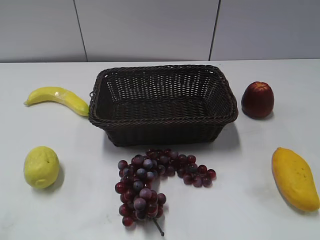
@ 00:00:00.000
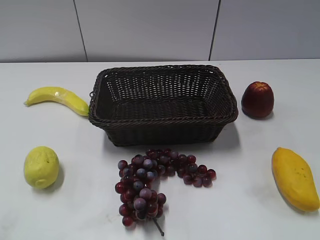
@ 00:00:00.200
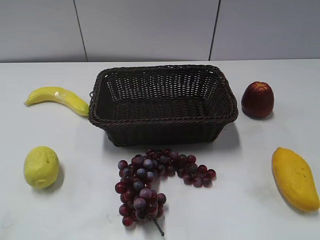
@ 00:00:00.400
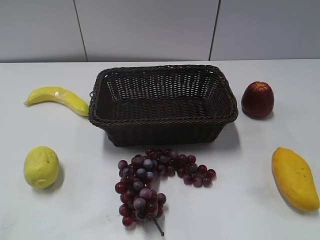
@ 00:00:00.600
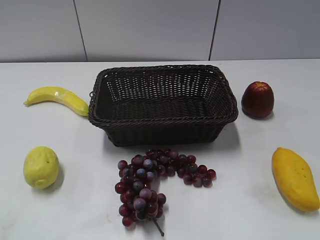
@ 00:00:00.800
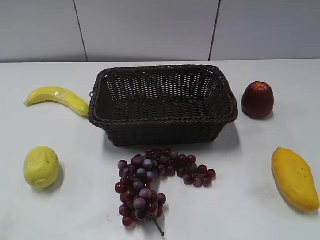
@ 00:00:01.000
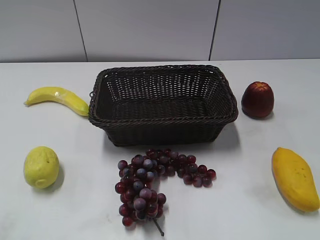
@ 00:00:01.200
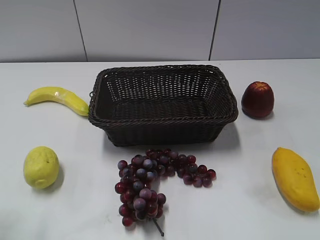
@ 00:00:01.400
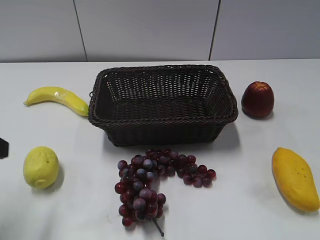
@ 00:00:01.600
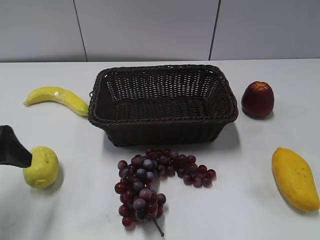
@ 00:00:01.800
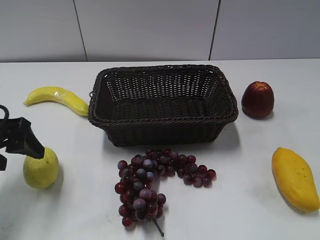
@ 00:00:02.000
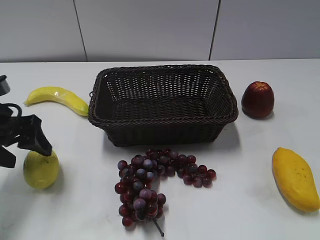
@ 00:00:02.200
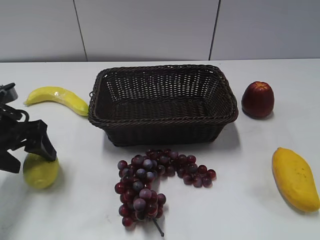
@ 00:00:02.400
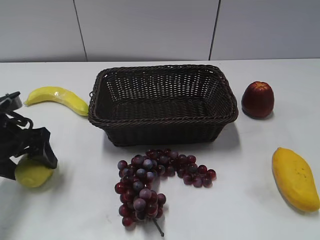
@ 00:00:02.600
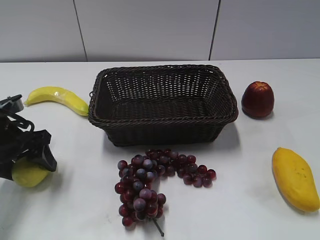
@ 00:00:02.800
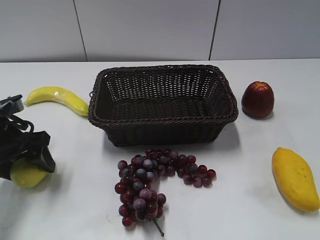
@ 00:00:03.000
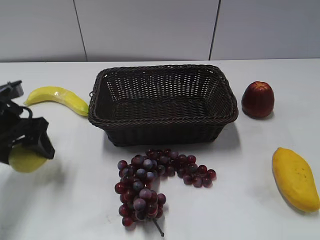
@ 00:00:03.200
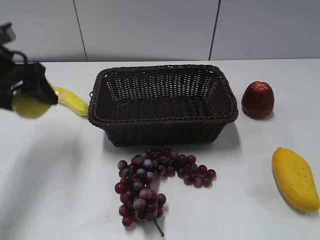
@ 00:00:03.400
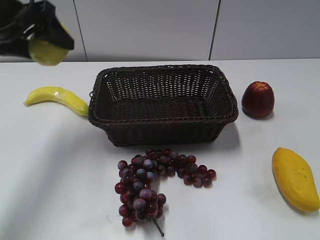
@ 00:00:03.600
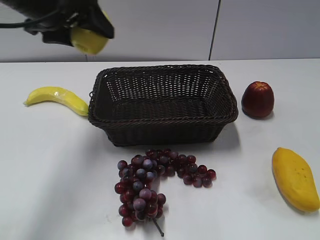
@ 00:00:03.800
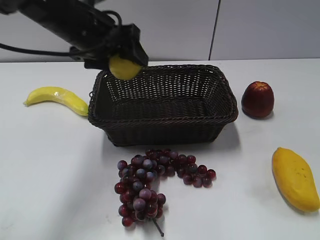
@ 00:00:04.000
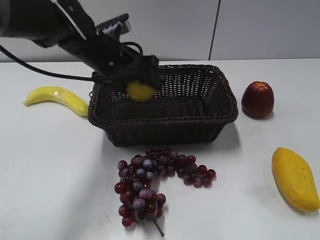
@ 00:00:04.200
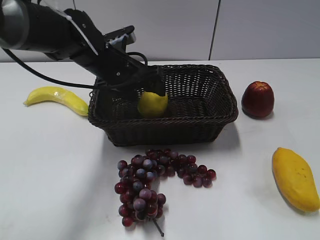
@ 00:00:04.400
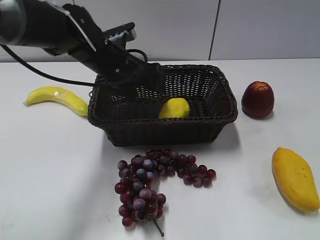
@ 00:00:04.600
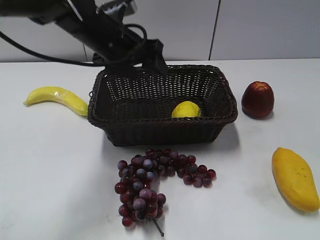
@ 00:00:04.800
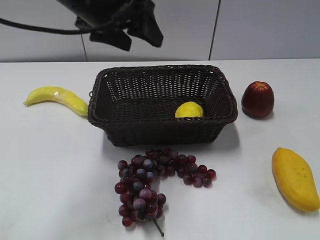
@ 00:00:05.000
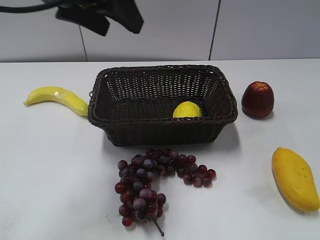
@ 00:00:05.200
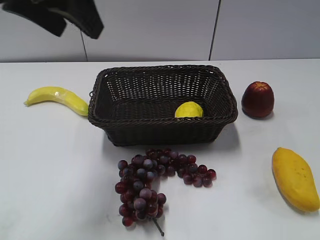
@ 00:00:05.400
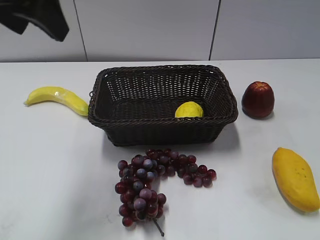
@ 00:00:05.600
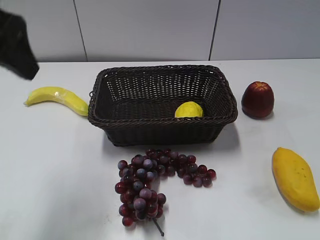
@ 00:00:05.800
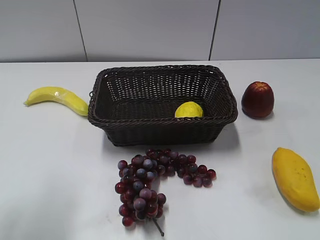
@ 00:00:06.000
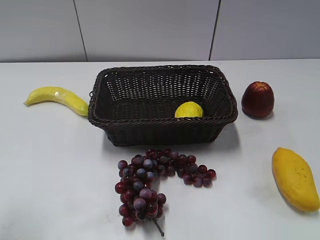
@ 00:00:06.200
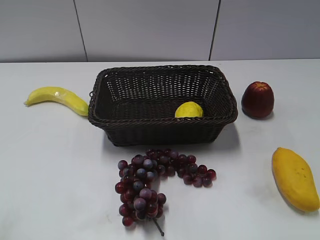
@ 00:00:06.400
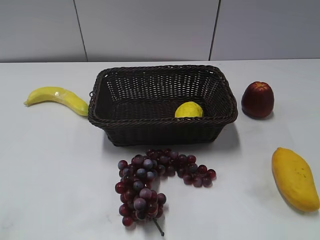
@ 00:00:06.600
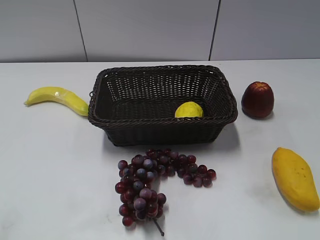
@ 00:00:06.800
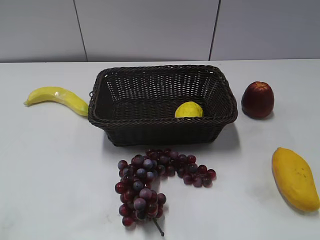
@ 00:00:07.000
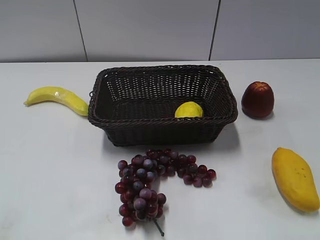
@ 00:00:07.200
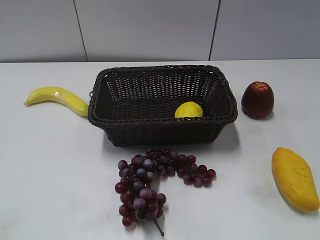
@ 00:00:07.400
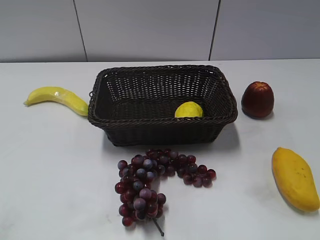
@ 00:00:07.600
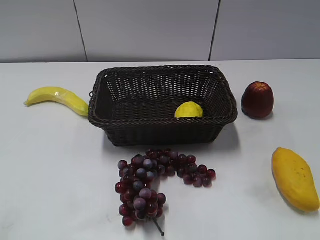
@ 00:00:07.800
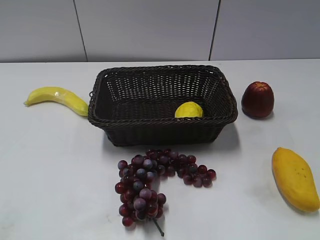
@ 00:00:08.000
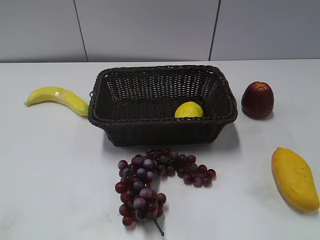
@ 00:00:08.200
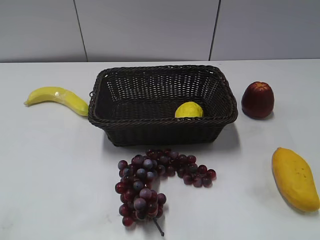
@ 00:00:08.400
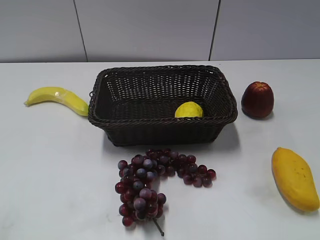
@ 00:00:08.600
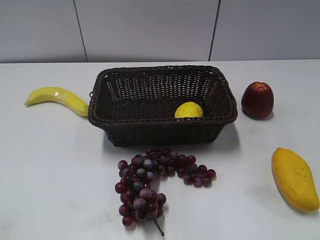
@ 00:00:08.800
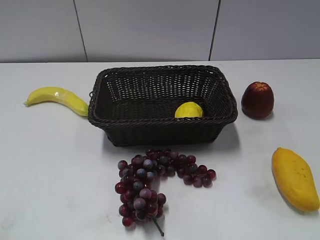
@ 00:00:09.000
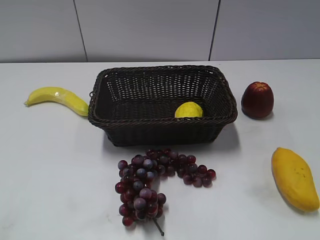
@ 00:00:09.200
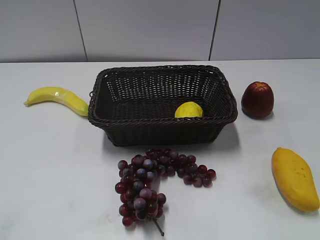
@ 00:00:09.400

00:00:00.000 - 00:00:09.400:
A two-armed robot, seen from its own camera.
Step, 00:00:01.600 - 00:00:03.000: Grasp the lemon with left gripper.
Step, 00:00:03.200 - 00:00:04.400: Place the lemon in the basket with left gripper.
00:00:01.600 - 00:00:03.200: The left gripper goes about 15 cm forward and downward.
00:00:03.200 - 00:00:04.800: The left gripper heads to the right, upward and forward, covering some 20 cm.
00:00:04.800 - 00:00:06.200: The left gripper goes about 30 cm backward and to the left.
